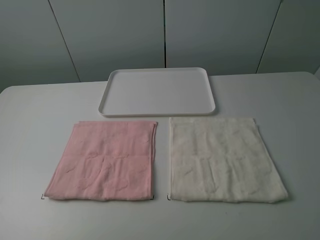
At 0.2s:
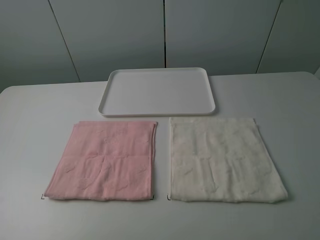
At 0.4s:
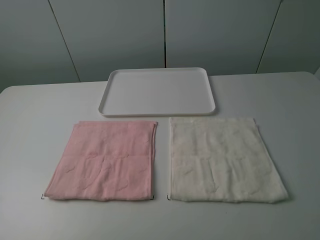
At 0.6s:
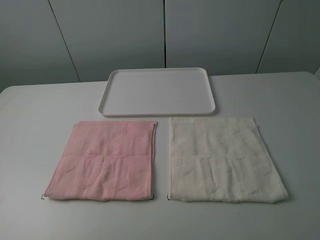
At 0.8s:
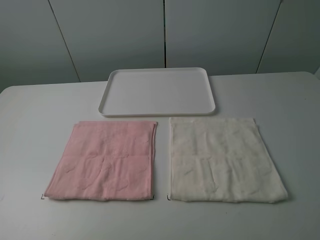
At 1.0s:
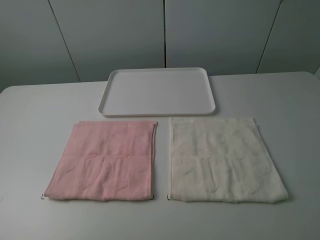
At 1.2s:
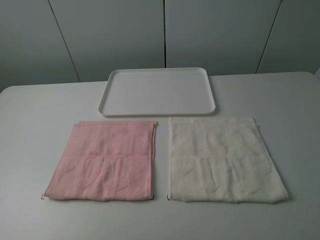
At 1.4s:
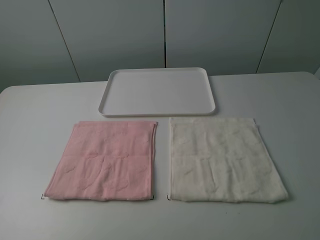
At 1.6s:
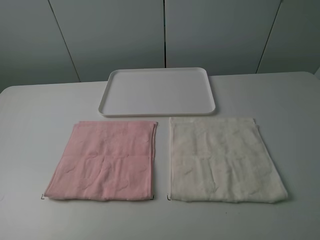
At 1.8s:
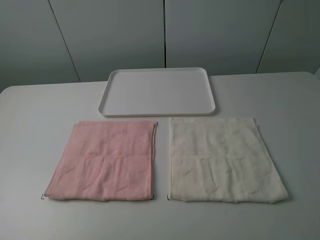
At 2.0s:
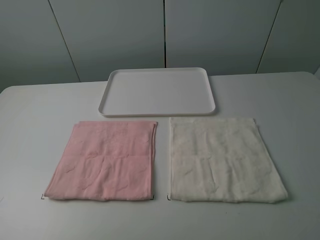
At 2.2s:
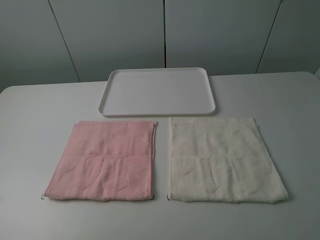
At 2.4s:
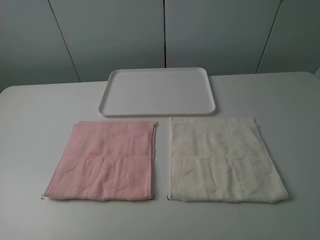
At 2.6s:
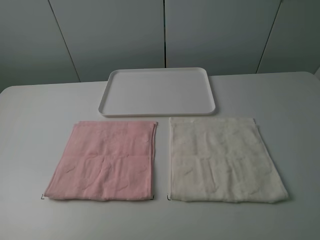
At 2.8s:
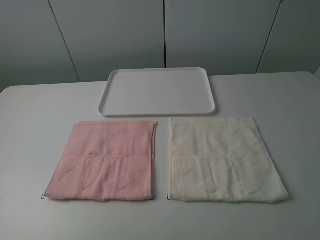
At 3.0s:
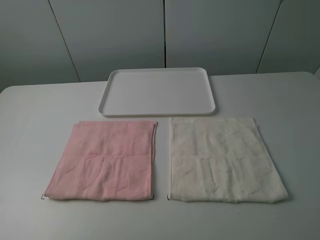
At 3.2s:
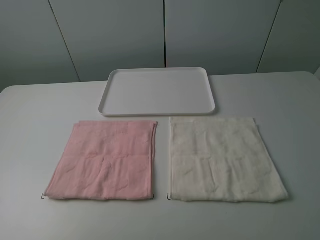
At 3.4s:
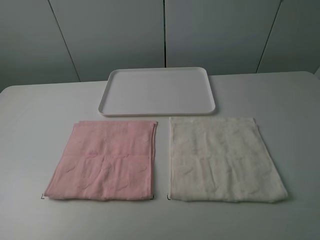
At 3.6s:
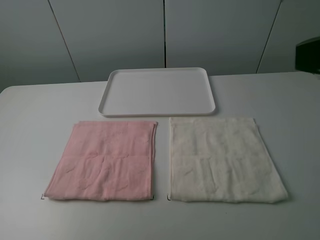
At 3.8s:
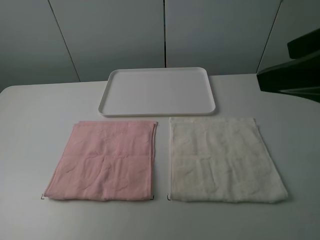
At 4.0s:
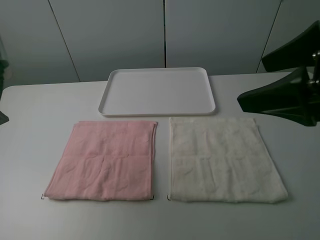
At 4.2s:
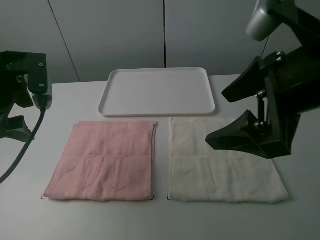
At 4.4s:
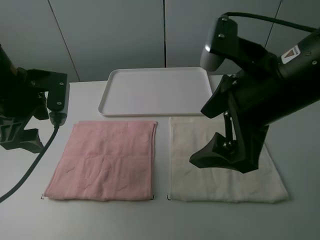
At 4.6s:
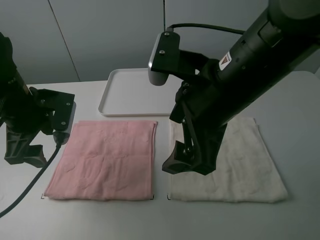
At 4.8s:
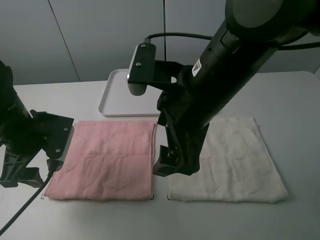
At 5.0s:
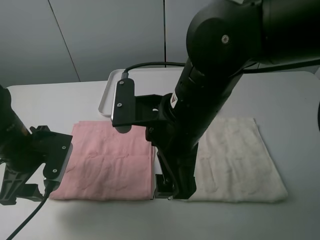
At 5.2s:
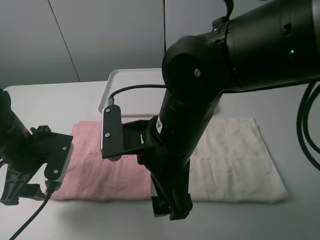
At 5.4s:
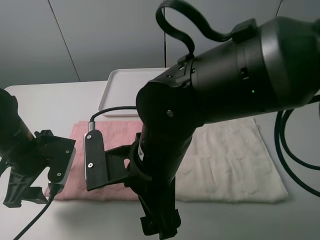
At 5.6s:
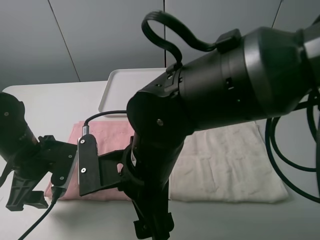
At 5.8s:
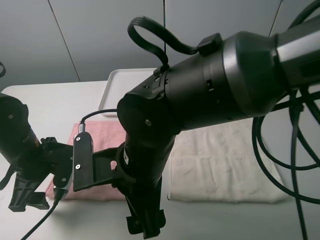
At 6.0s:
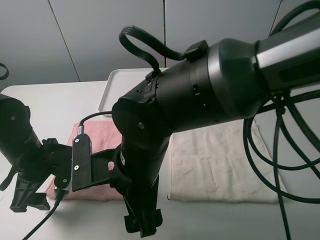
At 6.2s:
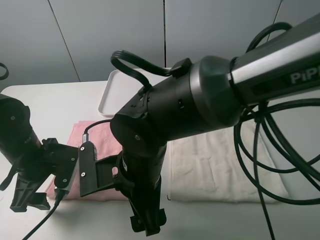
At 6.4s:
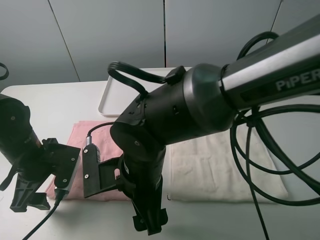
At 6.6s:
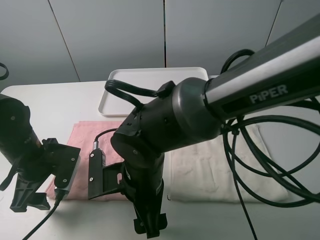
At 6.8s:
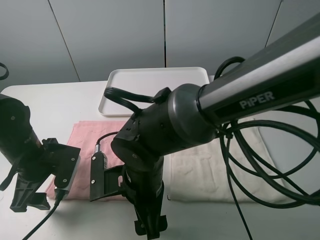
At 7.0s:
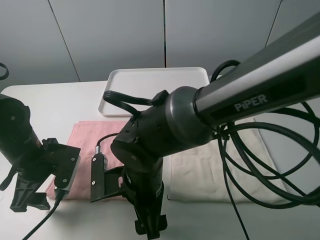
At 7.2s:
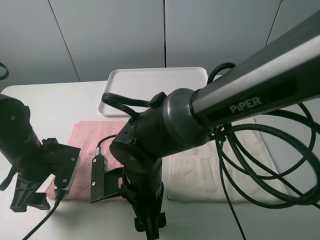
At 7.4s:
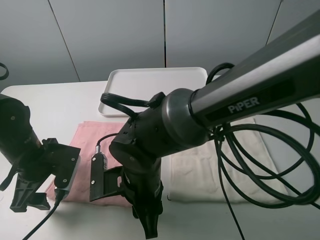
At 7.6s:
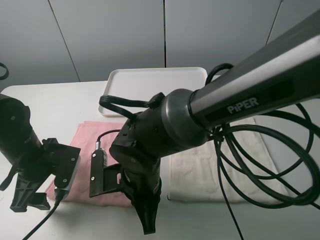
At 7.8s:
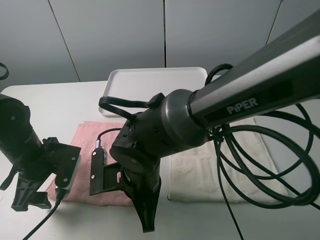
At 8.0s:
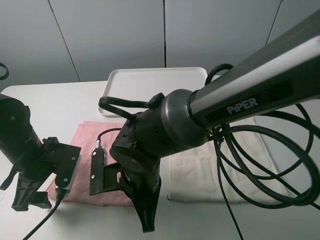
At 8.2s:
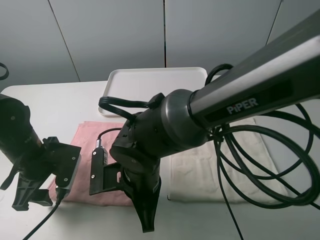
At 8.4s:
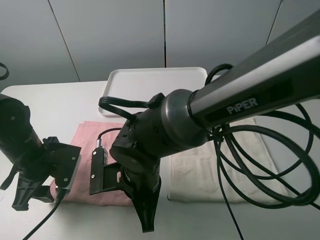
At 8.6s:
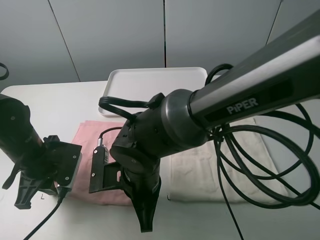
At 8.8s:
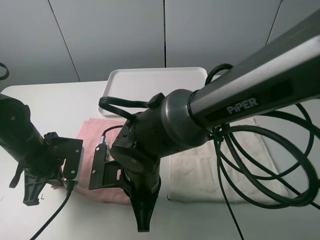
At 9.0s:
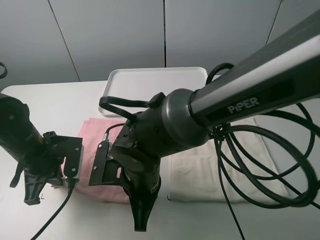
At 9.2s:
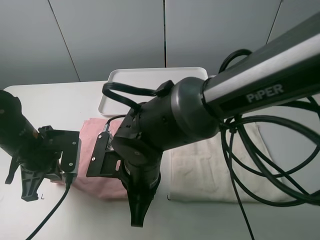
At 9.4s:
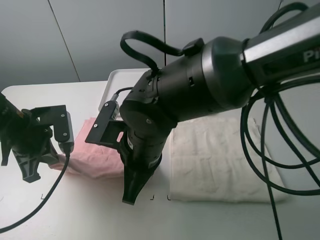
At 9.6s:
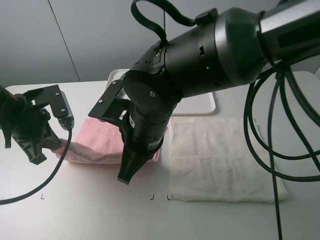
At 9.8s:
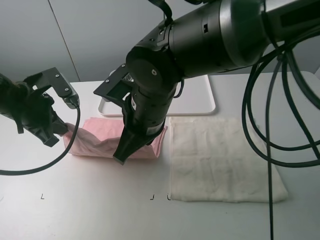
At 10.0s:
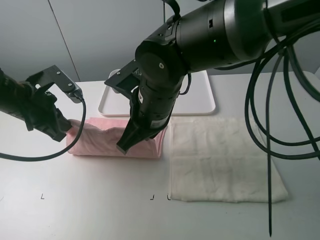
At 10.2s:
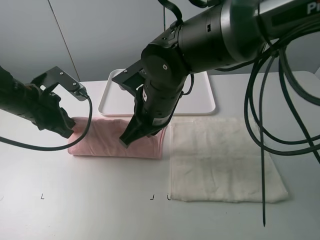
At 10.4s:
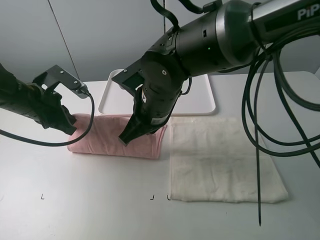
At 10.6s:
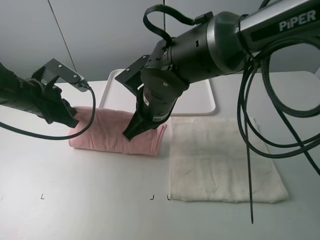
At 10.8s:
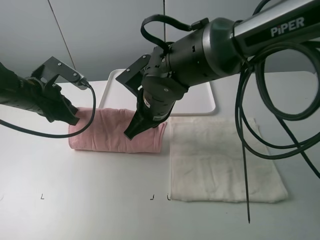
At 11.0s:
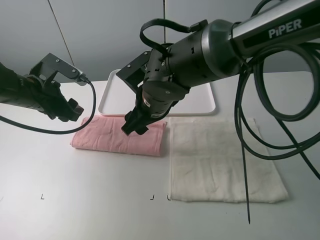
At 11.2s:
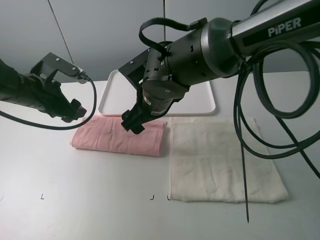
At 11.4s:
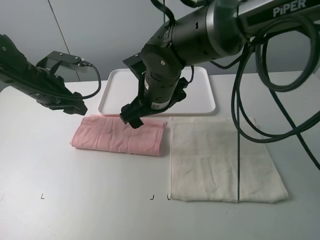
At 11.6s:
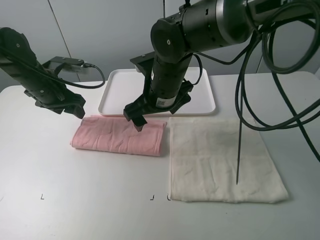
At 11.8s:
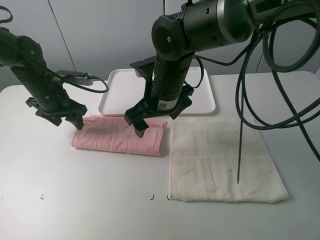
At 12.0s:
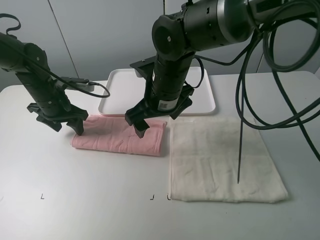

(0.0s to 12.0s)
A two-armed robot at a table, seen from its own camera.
Task of the whole recording: fold one of the towels by two grippers and place it on the tray,then fold another towel by two grippers and place it on the folded towel.
Step, 0.0s - 8.6s: Grasp the pink towel with the left gripper.
Step, 9.0s - 11.0s: Fold the pink towel upwards with the left gripper.
0.0s - 1.6s: Both grippers stay put.
3.0s - 4.4s: The left gripper heads forward, covering approximately 25 cm. The right gripper heads forward and to the left, covering approximately 25 cm.
4.4s - 6.0s: The right gripper goes some 20 cm to the left and downward, while the left gripper moves downward, about 10 cm.
6.0s - 7.6s: The right gripper moves downward, approximately 5 cm, and closes.
7.6s - 9.0s: The left gripper closes its fingers.
9.0s - 10.4s: The grippers both shift forward and upward by roughly 10 cm.
10.4s - 12.0s: The left gripper heads forward, covering about 5 cm, and opens up; the right gripper opens its fingers.

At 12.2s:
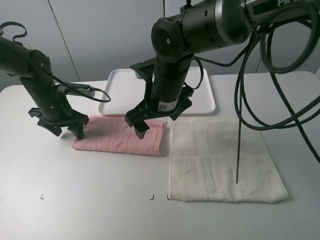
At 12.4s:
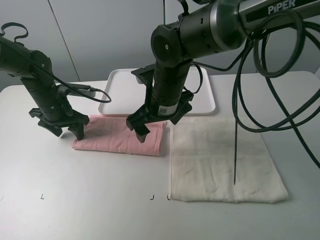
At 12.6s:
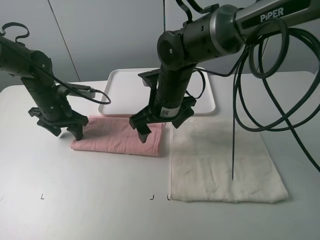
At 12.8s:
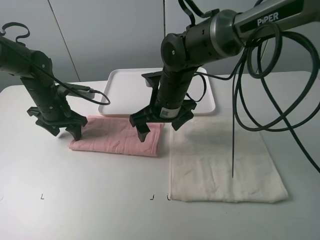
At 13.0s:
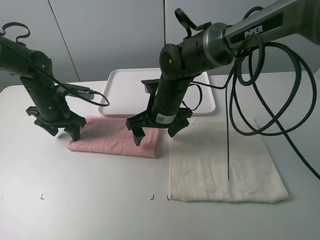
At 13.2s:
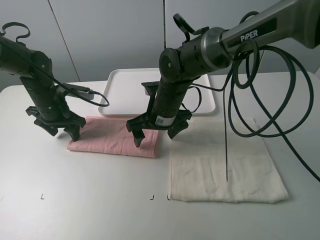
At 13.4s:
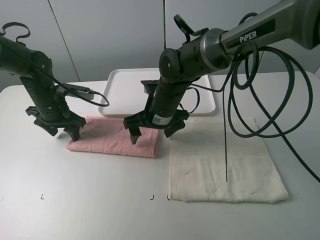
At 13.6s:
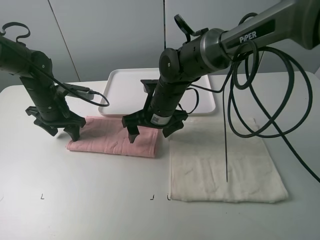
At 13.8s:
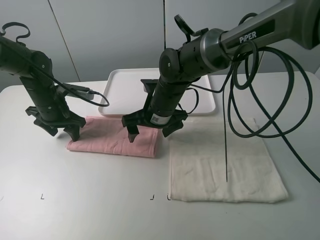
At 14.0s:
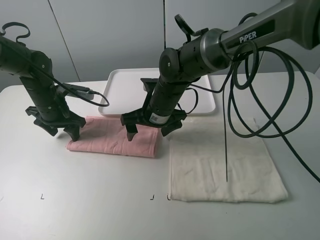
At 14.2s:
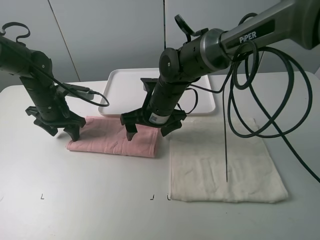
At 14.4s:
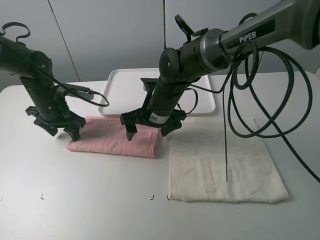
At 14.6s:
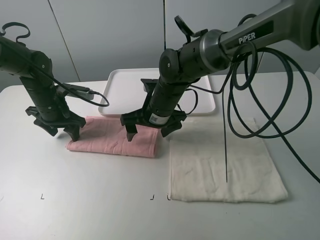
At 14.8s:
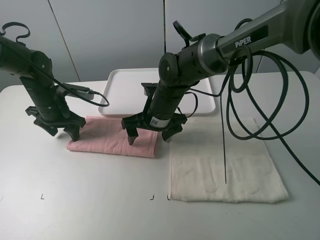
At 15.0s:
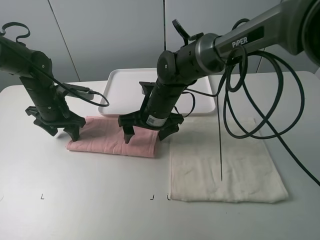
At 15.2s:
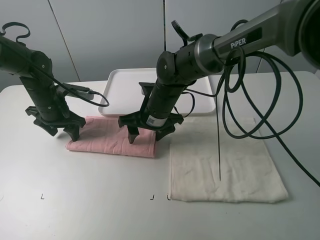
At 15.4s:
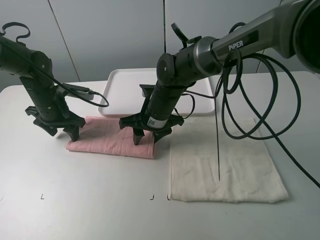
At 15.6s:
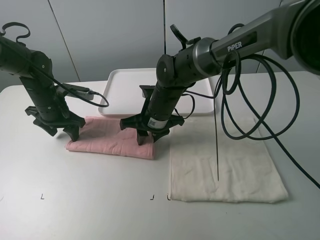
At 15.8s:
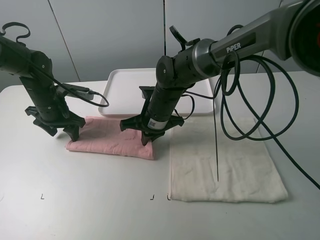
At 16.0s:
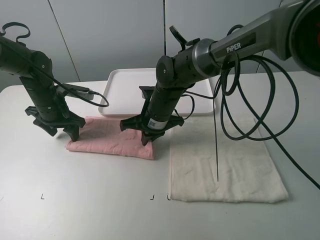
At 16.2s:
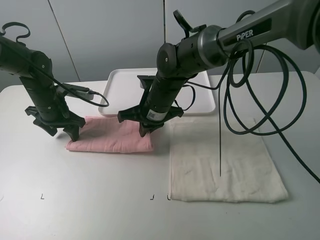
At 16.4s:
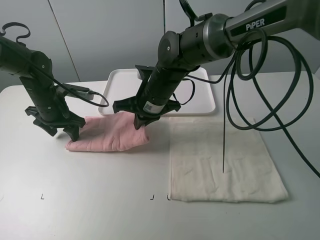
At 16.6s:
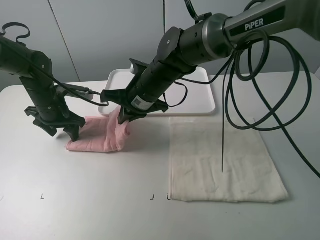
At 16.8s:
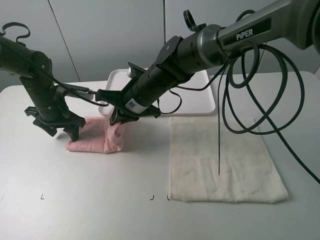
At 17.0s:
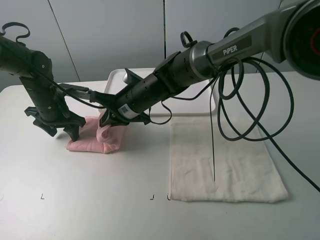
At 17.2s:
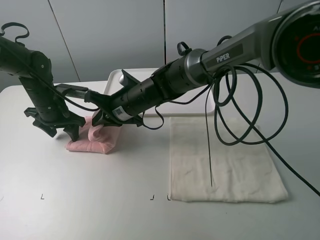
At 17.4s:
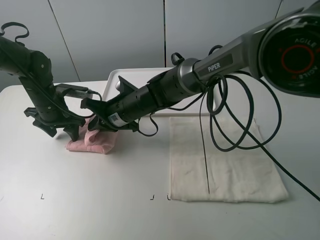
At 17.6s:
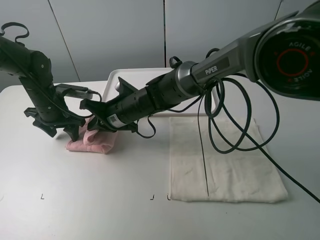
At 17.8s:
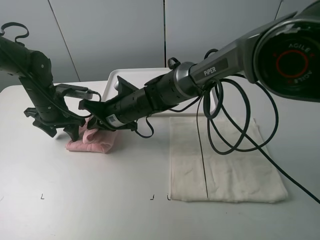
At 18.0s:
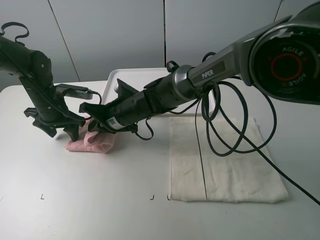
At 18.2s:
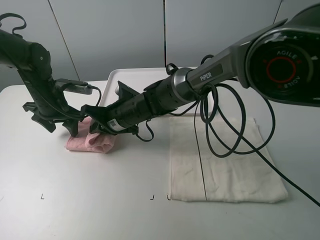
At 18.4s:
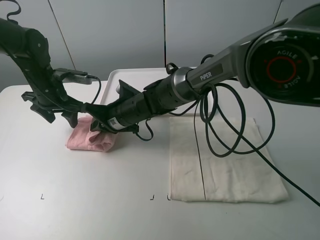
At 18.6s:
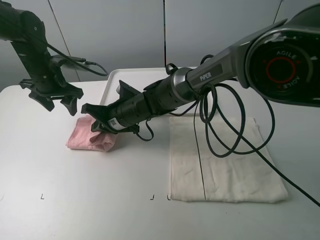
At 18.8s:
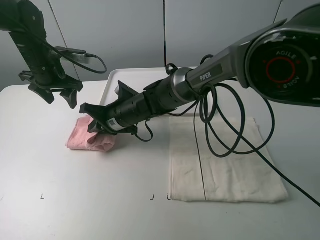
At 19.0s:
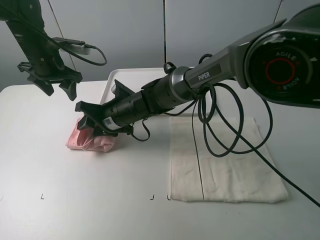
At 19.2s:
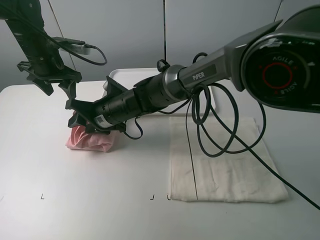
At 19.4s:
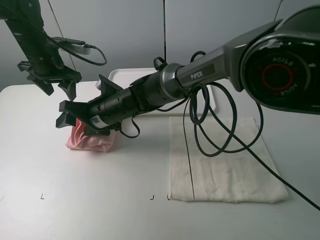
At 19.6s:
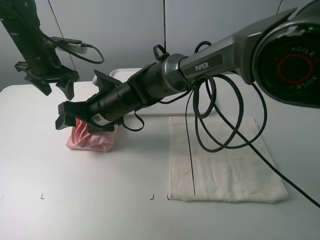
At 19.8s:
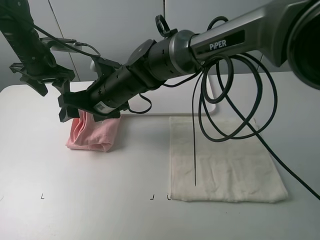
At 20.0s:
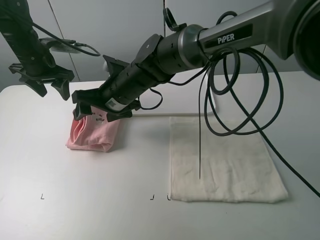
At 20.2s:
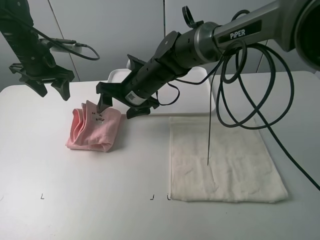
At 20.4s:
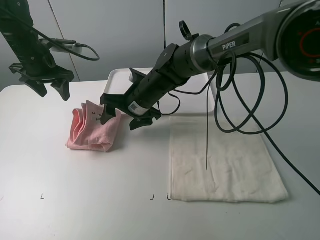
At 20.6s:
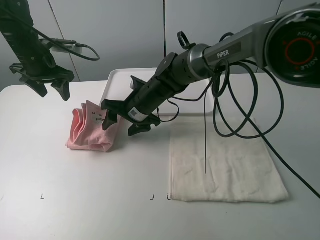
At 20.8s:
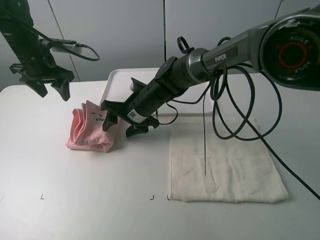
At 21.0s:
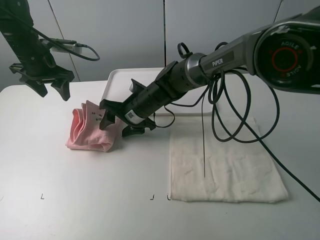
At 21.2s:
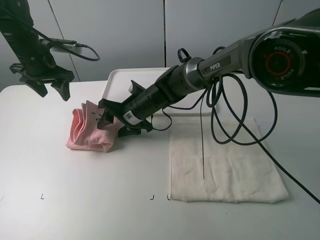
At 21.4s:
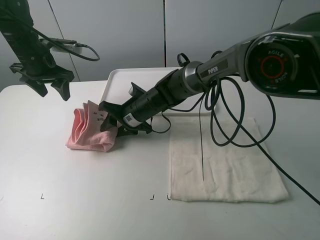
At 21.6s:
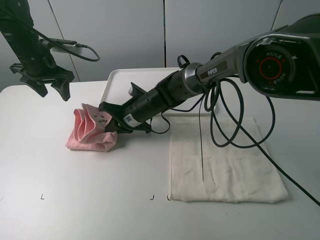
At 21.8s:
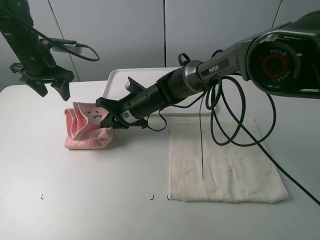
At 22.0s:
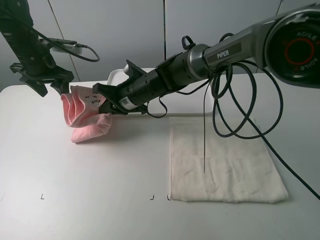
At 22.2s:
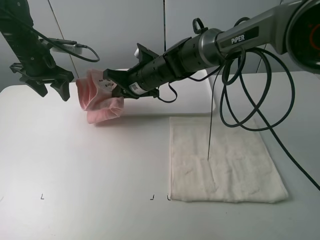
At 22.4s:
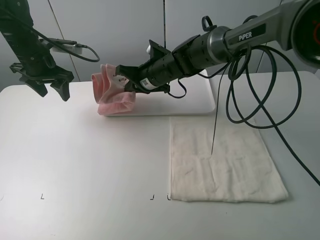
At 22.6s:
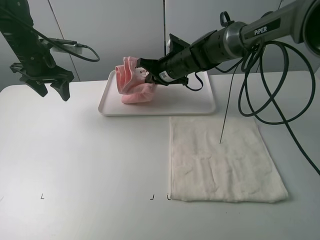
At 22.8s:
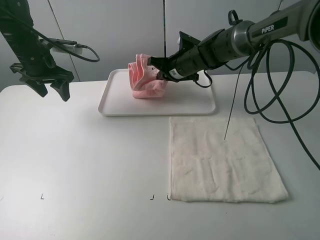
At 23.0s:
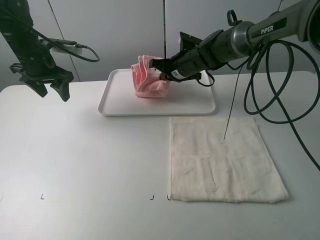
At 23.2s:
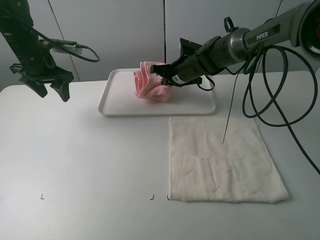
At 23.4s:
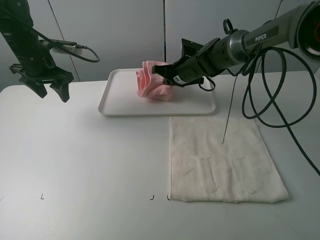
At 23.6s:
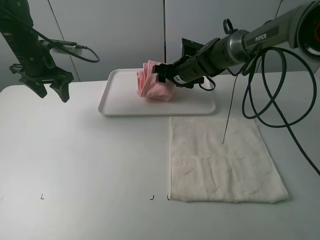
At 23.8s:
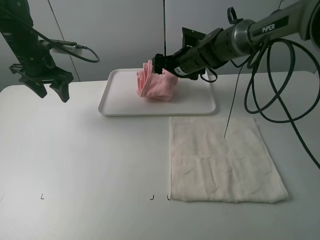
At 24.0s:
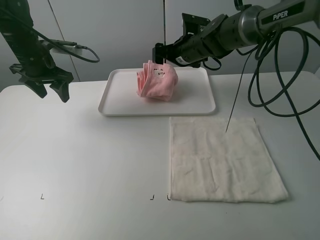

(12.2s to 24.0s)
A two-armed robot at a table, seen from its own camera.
Task of the whole recording: fold one of the towels by two grippers and place it on the tray,then fold another towel by two grippers and place it on the folded towel.
Step, 12.6s - 16.0s: Grasp the pink towel with the right gripper.
Step, 16.2s - 19.4s: Fold the pink towel from right to left with right gripper.
Step, 19.6s - 21.6s: Grasp the pink towel with the right gripper.
Step, 21.8s - 24.0s: Move the pink towel to the plate with the right gripper.
12.2s - 13.6s: The right gripper shifts some 5 cm downward.
13.6s - 15.2s: The grippers stay close to where they were, moving slightly.
15.2s - 16.6s: The right gripper ends up roughly 5 cm from where it was, and closes its fingers.
16.6s - 18.2s: The right gripper goes about 5 cm downward.
18.2s - 19.6s: The left gripper heads upward, covering some 10 cm, while the right gripper moves approximately 5 cm, and opens its fingers.
19.6s - 21.0s: The right gripper goes about 5 cm to the right.
21.0s - 22.6s: The right gripper shifts approximately 15 cm to the right, forward and upward, and closes its fingers.
22.6s - 24.0s: The right gripper opens its fingers.
